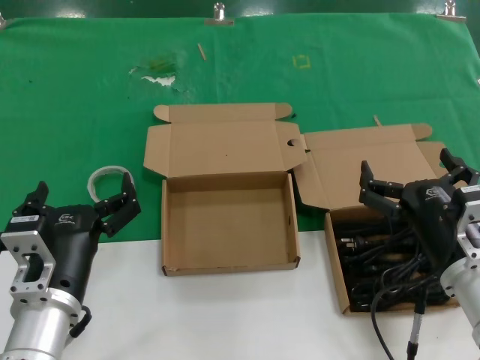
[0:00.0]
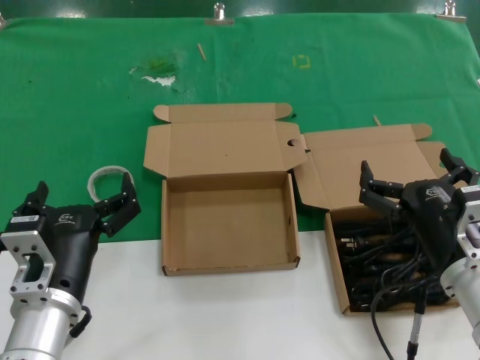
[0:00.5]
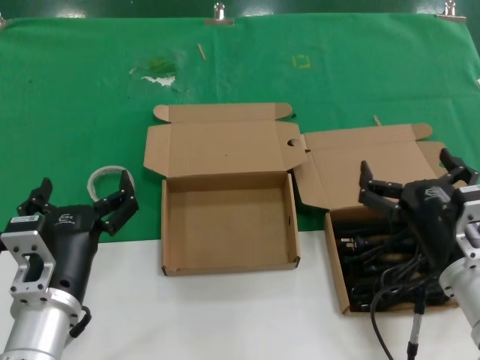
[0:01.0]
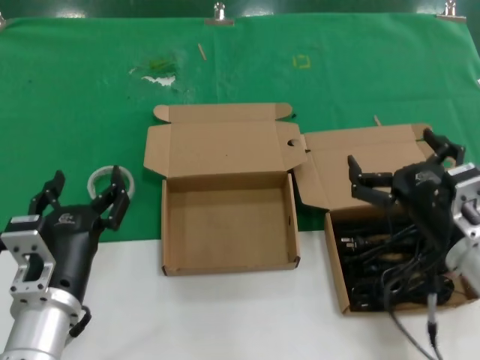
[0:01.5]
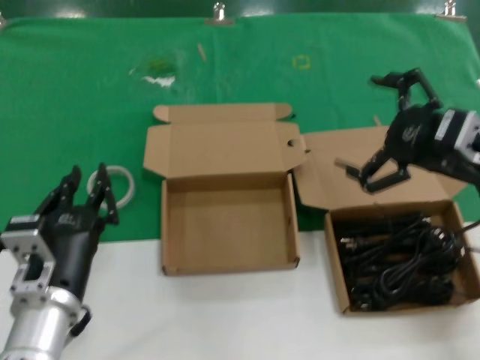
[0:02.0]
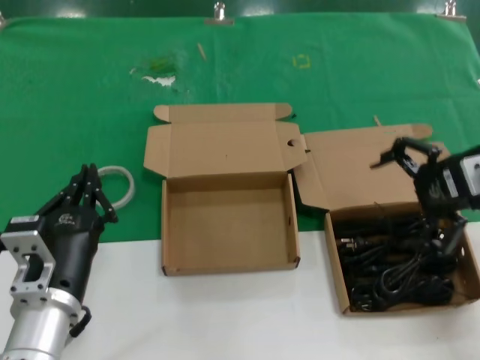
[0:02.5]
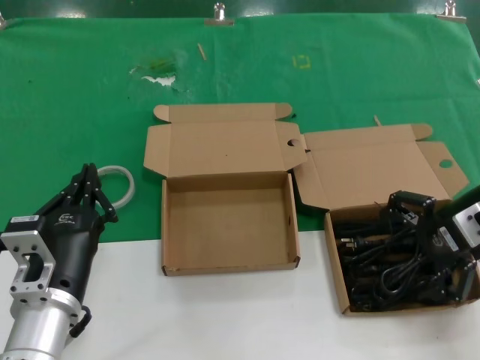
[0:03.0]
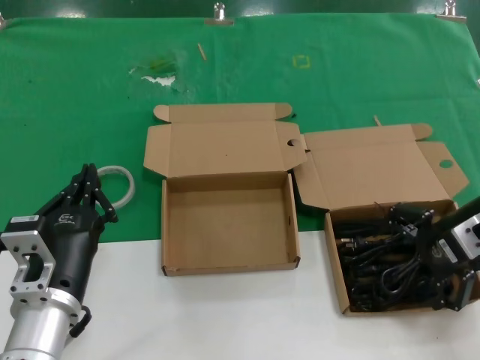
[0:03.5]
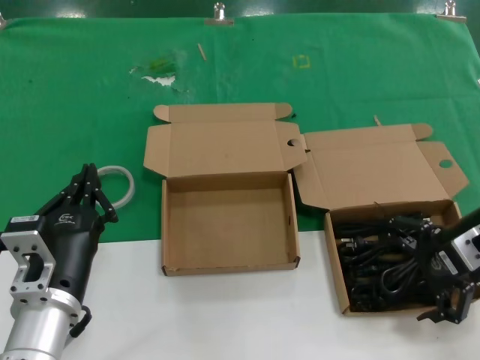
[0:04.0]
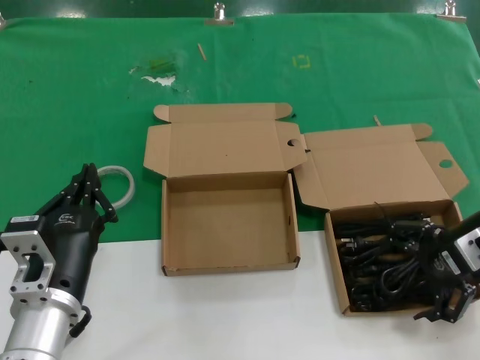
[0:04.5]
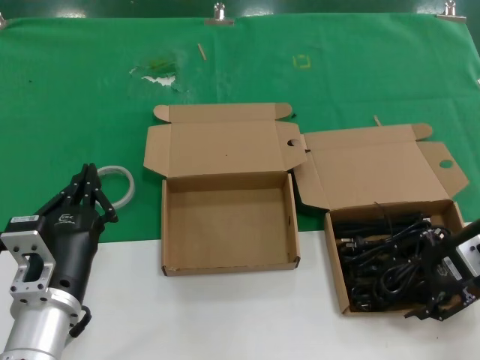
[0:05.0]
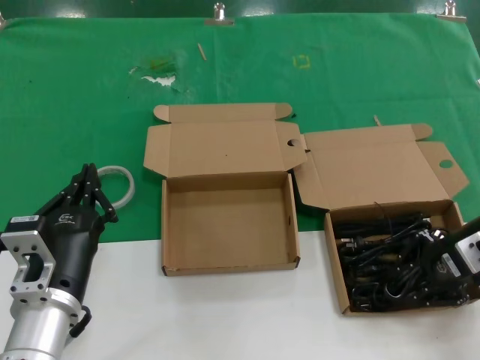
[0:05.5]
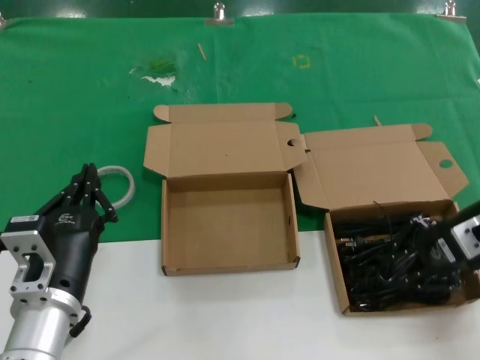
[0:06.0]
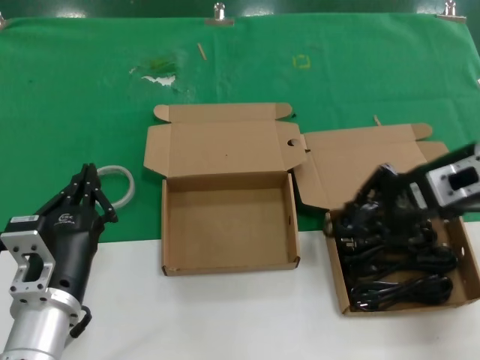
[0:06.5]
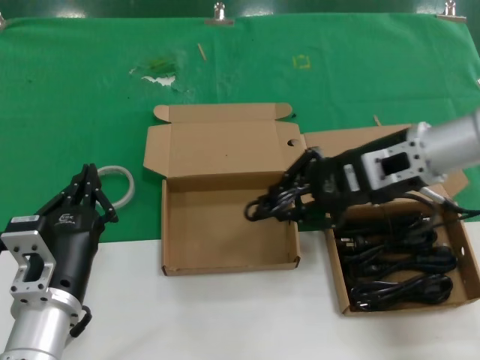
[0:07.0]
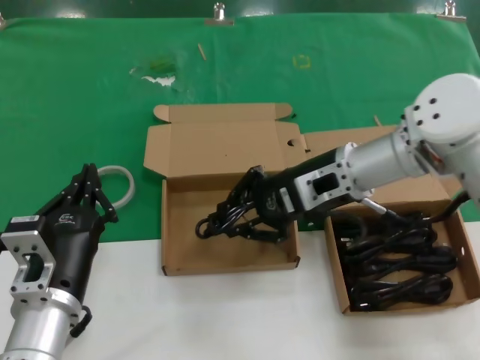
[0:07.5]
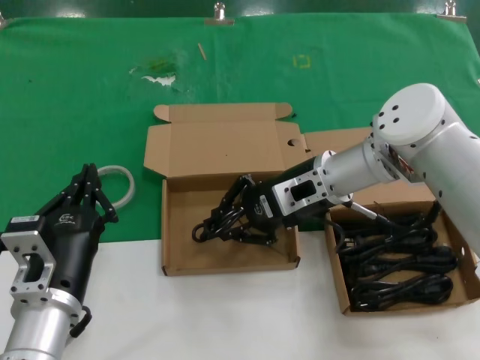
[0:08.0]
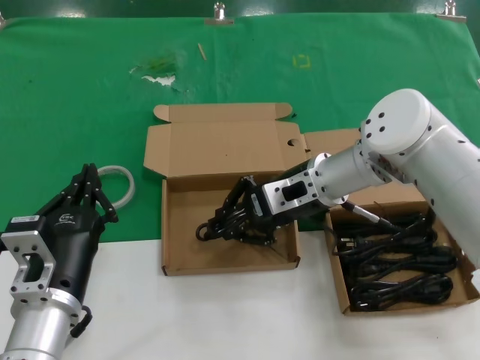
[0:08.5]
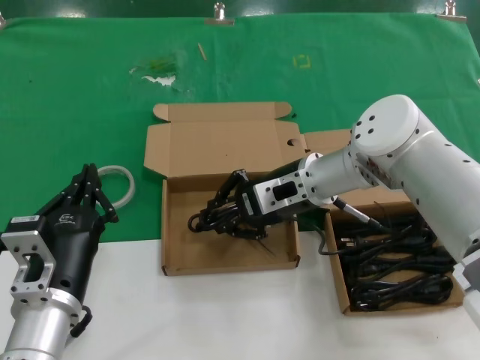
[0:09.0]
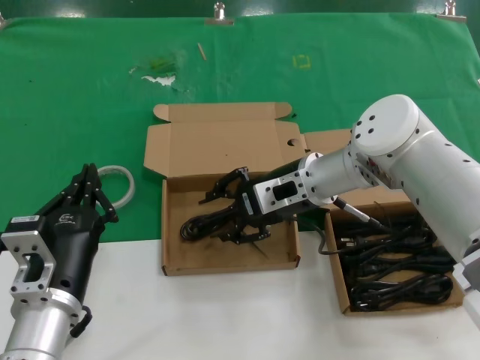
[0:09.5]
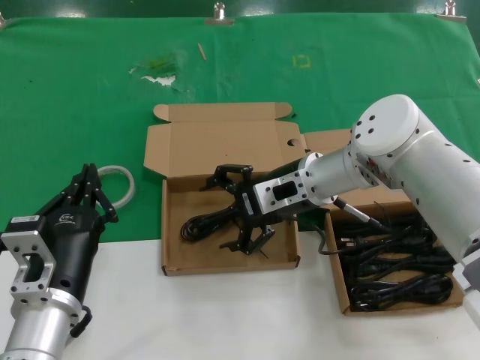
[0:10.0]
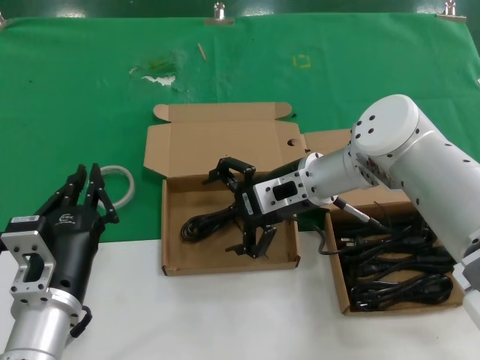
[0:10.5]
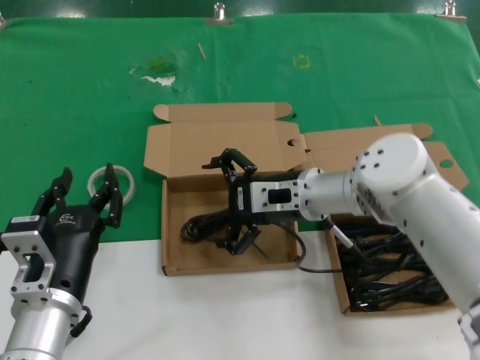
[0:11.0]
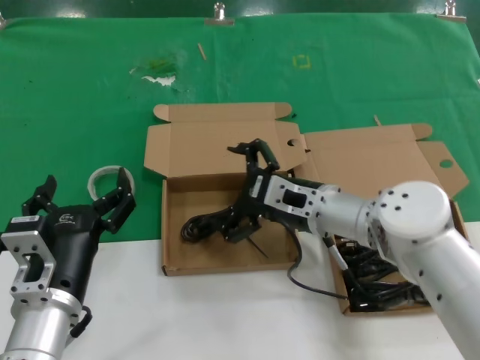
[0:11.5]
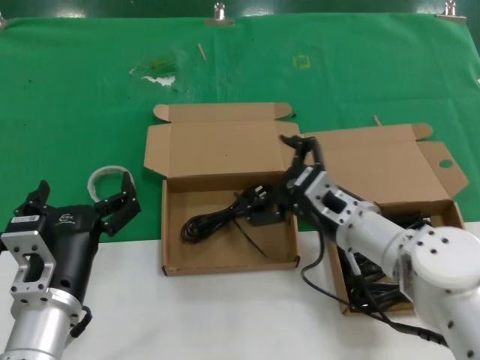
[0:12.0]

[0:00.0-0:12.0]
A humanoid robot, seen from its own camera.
Task of the whole recording: take the parts from the box containing them and put them into an empty box.
Step, 0:00.0 to 0:05.5: Grasp the data cable.
Step, 0:06.0 to 0:09.0: Place the data cable in the another box.
0:00.0 to 0:02.0: The right hand heads upward, forward and to the right, covering some 20 cm.
0:04.0 to 0:06.0: The hands make only small movements.
0:06.0 to 0:08.0: The right hand is displaced to the left and forward by about 20 cm.
0:08.0 to 0:10.0: The hands stay close to where they were, moving slightly.
0:10.0 to 0:12.0: The right hand shifts roughly 10 cm backward and downward.

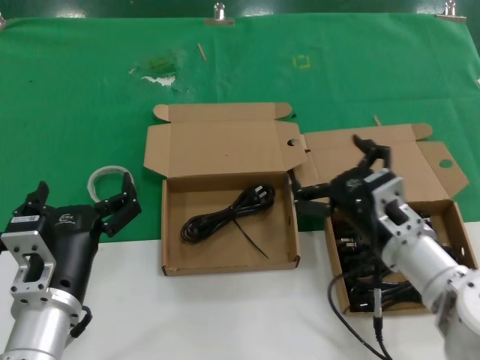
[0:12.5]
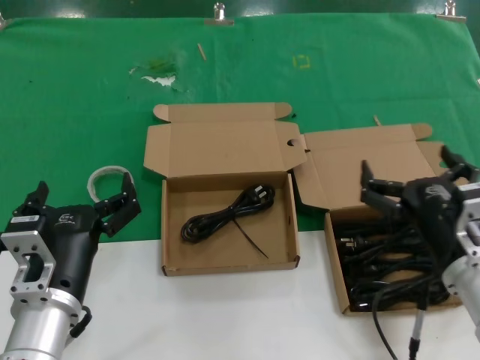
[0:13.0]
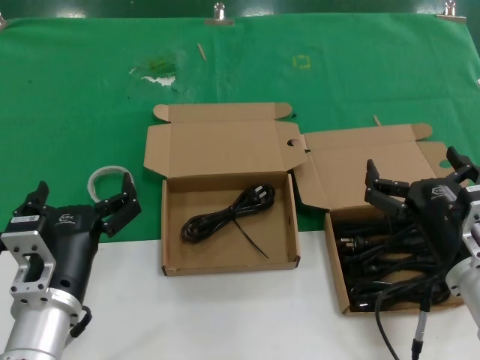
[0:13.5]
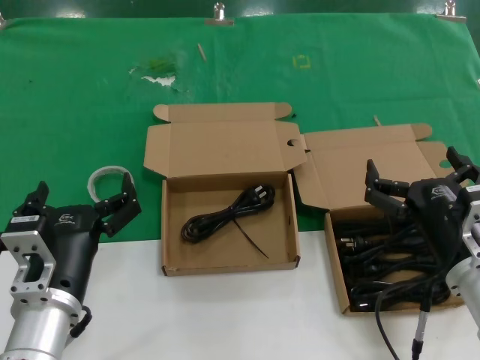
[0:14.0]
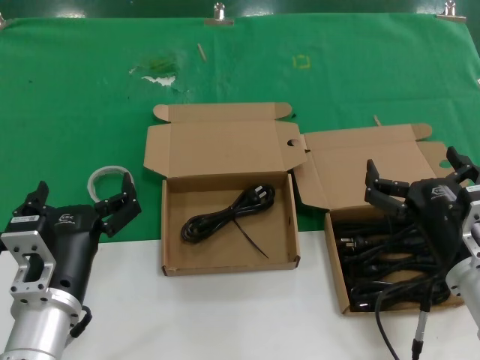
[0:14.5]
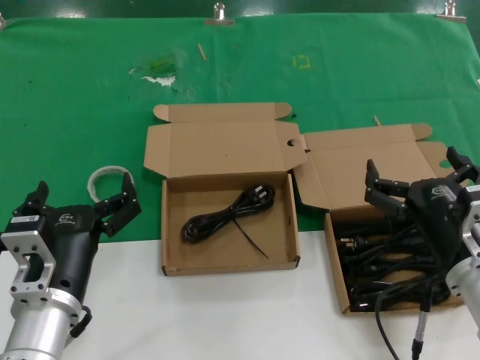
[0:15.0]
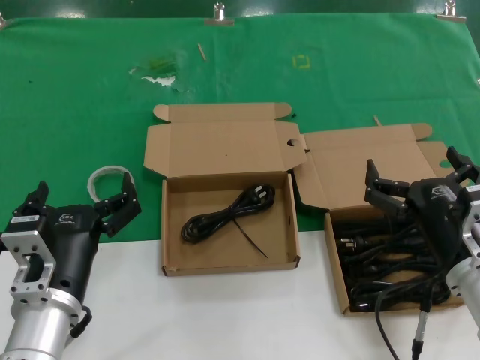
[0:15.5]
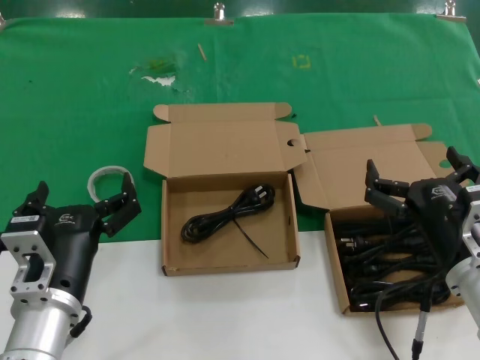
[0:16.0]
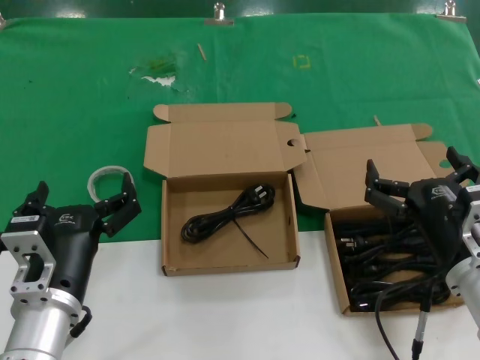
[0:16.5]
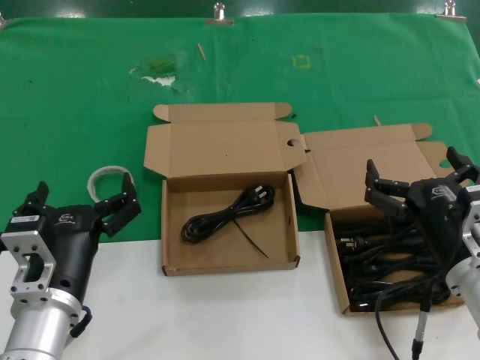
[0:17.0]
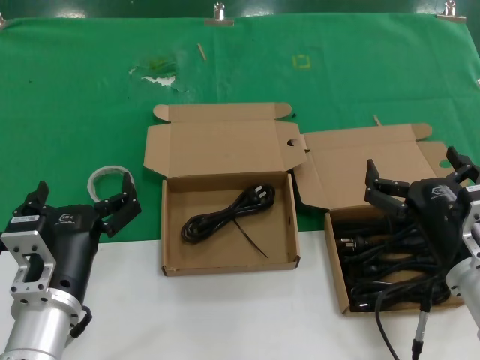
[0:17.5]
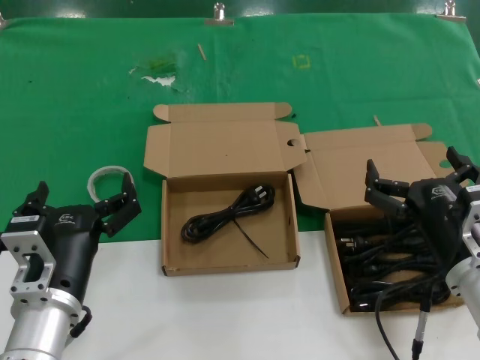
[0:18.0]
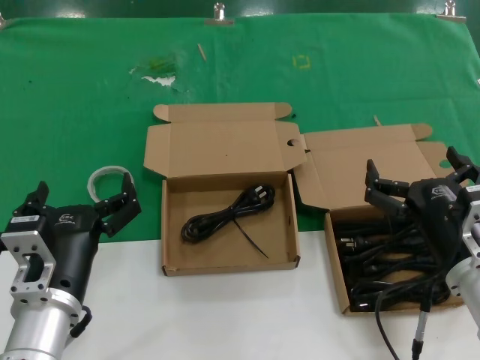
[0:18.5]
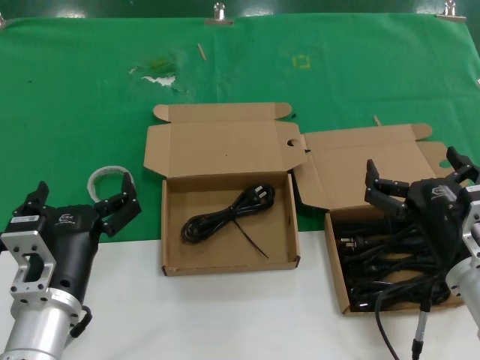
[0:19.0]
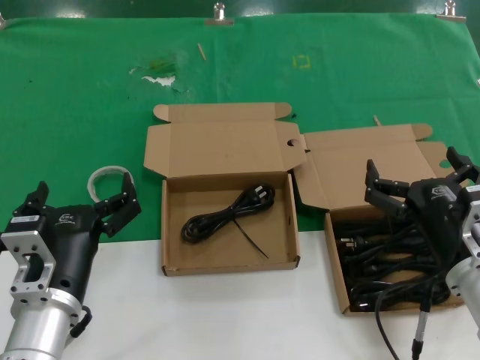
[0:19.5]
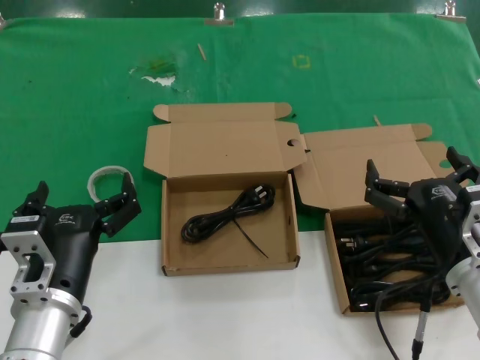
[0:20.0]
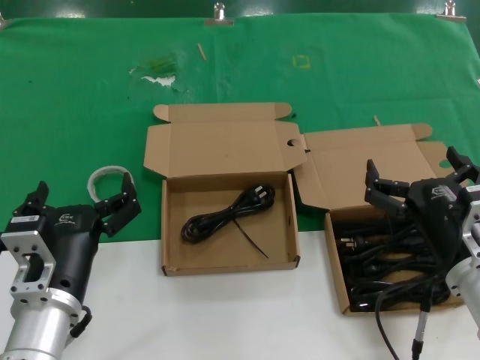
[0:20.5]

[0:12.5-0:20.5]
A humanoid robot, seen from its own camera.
Task of the whole recording: take the parts from the box containing them and put them into an empty box.
0:12.5 to 0:14.5: The right hand shifts approximately 5 cm backward.
0:14.5 to 0:20.5: The two hands keep their place.
